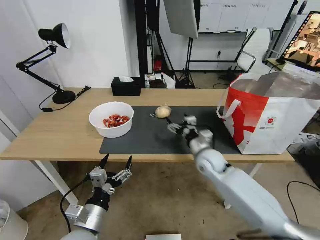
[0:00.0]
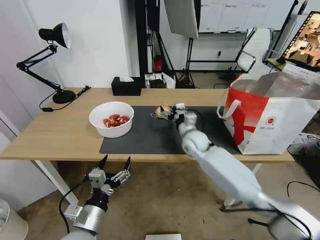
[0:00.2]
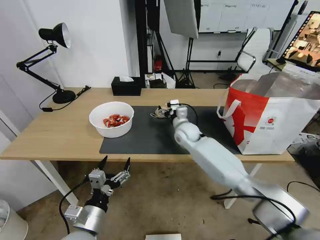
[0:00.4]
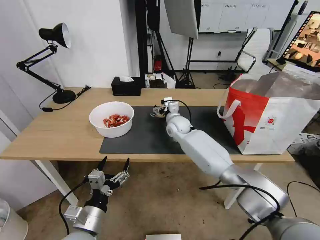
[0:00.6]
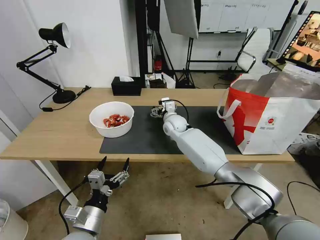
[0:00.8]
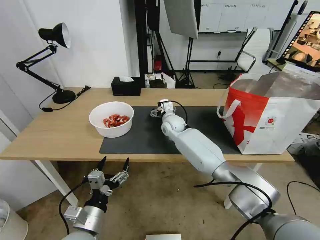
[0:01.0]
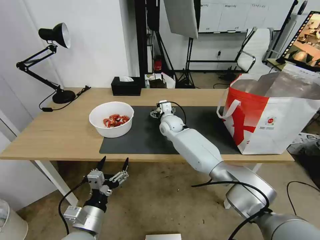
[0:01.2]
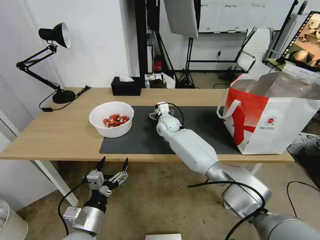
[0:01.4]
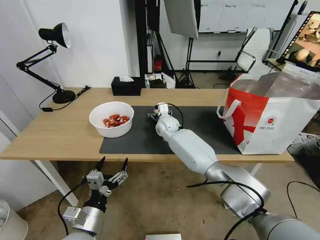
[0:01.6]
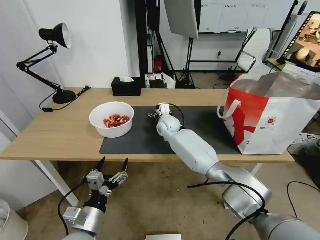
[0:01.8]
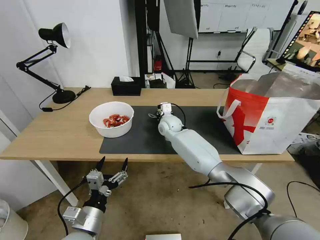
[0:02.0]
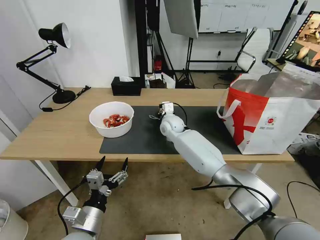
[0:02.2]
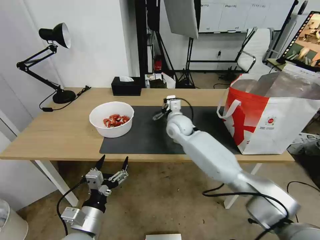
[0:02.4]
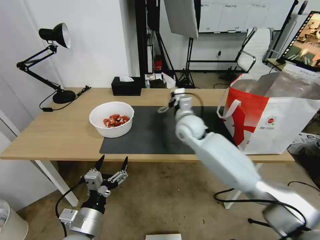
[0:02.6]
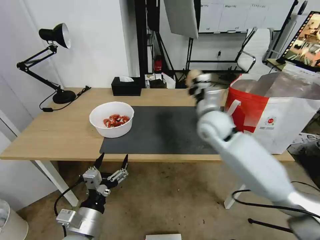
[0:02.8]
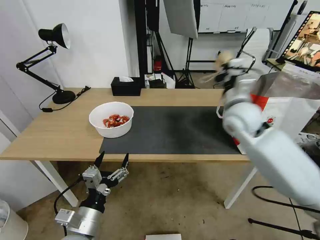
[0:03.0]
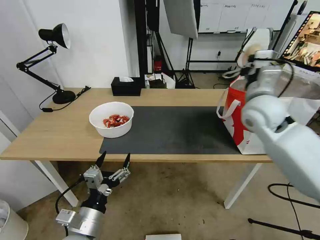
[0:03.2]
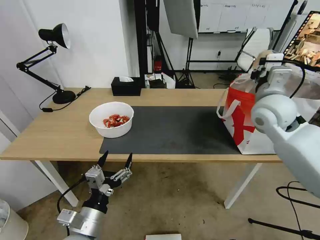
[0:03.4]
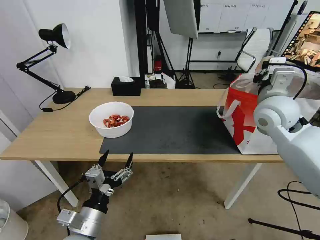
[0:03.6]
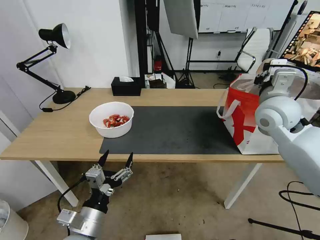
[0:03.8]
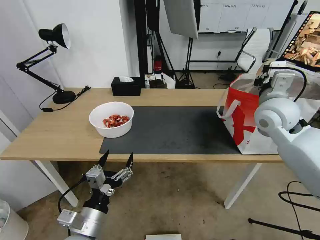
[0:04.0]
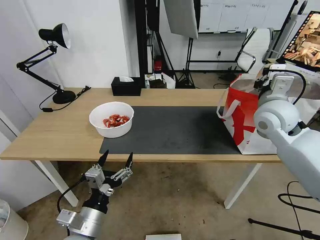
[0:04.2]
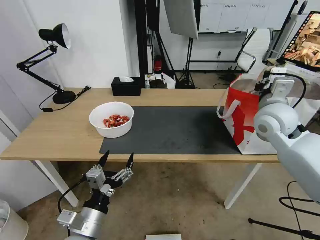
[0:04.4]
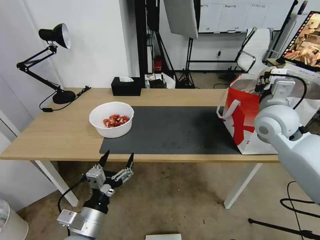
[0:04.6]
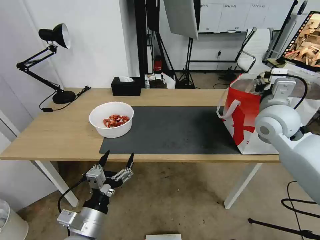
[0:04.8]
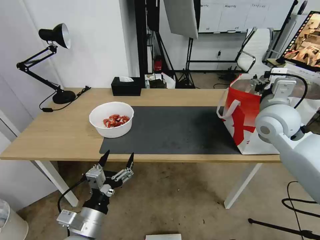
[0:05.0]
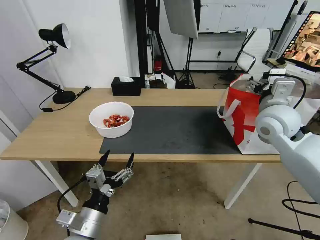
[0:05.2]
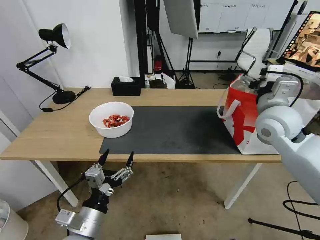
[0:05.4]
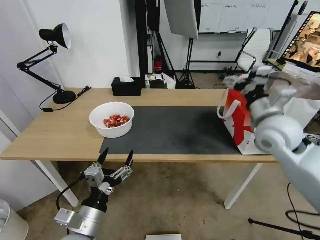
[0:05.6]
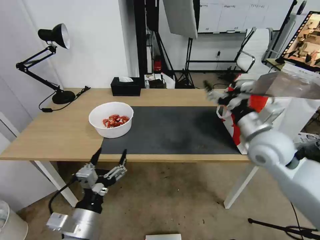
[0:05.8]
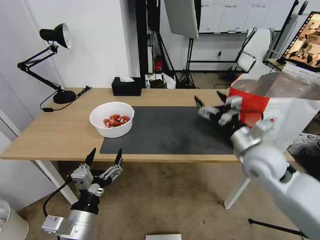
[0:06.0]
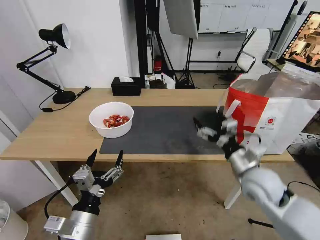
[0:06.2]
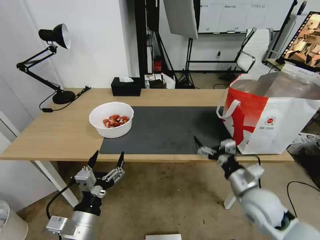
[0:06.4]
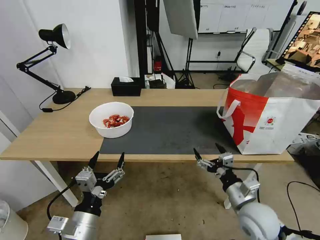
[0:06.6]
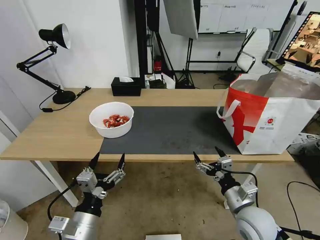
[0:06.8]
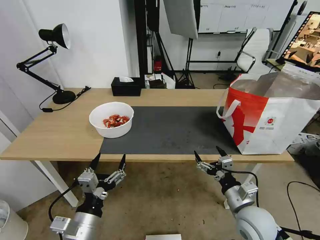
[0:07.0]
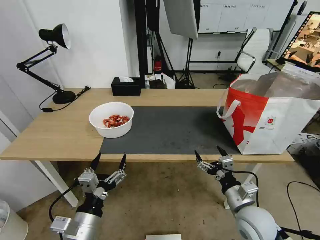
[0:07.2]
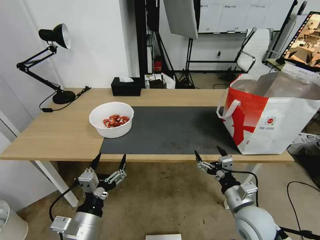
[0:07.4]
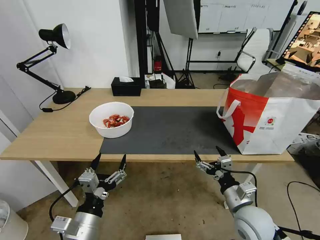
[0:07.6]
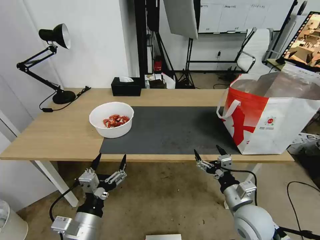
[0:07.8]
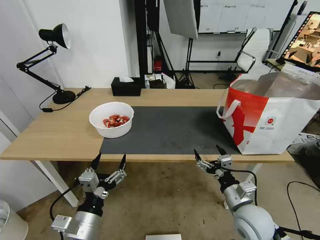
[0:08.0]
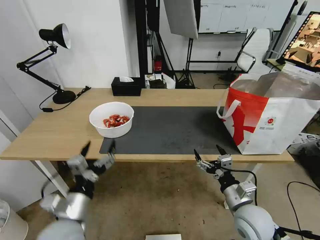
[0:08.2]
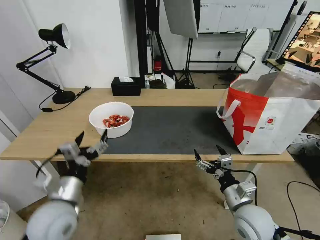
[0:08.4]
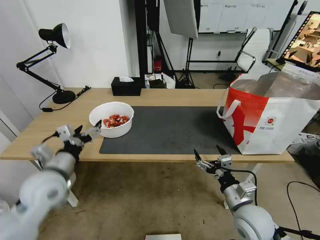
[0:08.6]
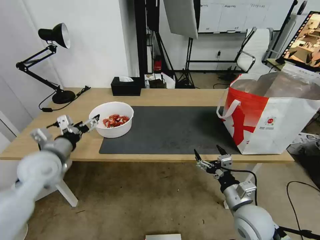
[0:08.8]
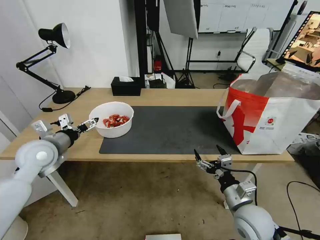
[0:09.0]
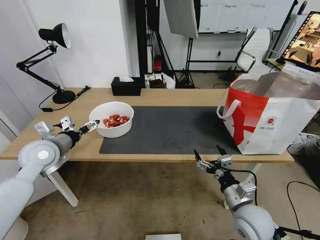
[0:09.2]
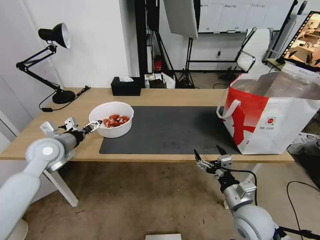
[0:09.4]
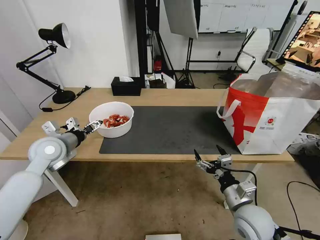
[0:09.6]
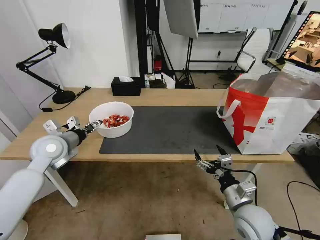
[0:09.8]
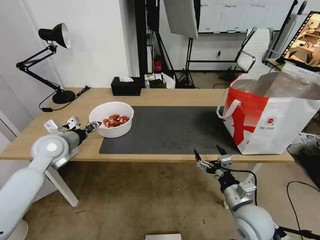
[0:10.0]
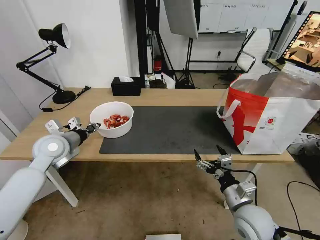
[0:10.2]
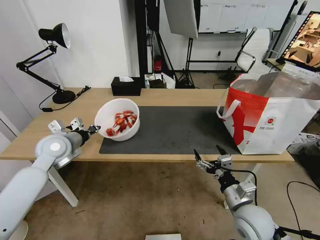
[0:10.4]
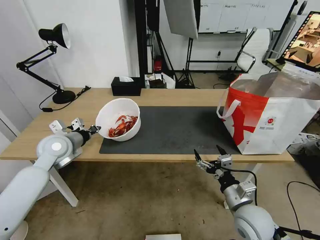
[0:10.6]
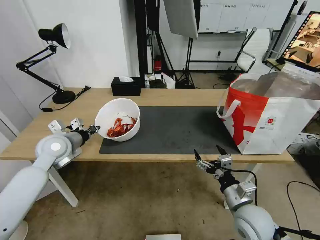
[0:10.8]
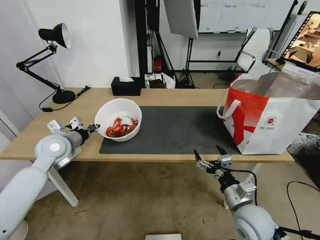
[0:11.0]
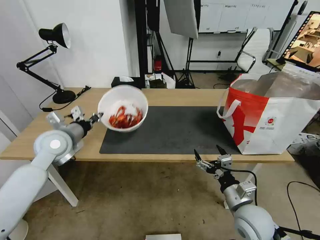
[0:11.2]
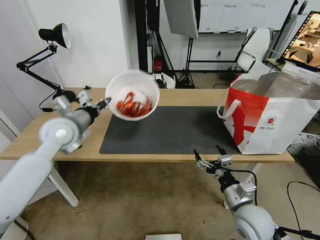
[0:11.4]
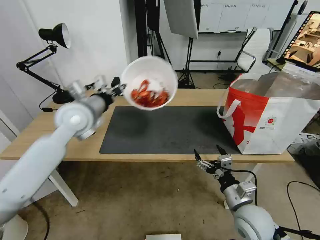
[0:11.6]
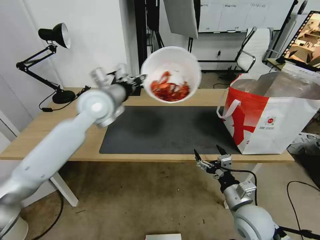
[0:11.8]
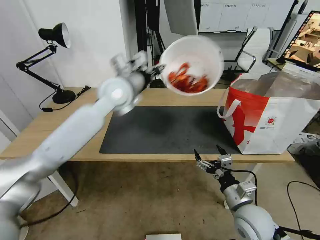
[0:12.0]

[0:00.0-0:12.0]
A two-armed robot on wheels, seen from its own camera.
Task of the whole recording: Pick up the trash from the table and place it into the takeout bag.
0:00.0 to 0:01.6: The right gripper shifts approximately 20 cm forward and to the left.
0:01.6 to 0:03.0: The right gripper shifts roughly 30 cm to the right, upward and backward, and closes.
0:03.0 to 0:04.4: The right gripper moves to the right, roughly 5 cm.
0:04.4 to 0:06.0: The right gripper travels backward and downward by some 10 cm, and opens up.
0:06.0 to 0:07.6: The right gripper heads downward and backward, covering about 15 cm.
0:07.6 to 0:09.0: The left gripper is displaced forward, to the left and upward by some 30 cm.
0:09.0 to 0:10.4: The left gripper closes up.
0:10.4 to 0:12.0: The left gripper shifts about 25 cm to the right and upward.

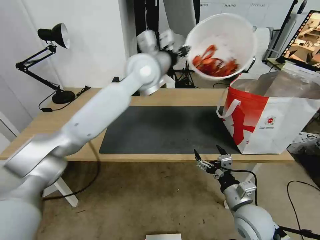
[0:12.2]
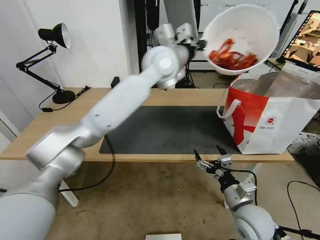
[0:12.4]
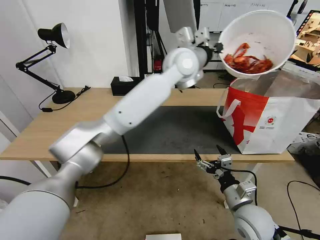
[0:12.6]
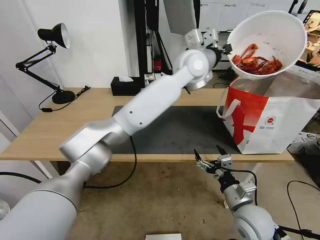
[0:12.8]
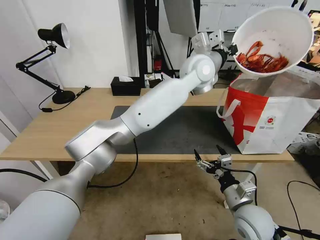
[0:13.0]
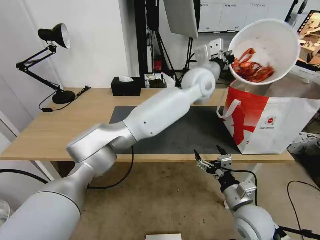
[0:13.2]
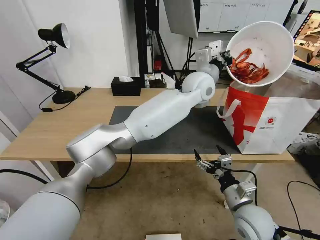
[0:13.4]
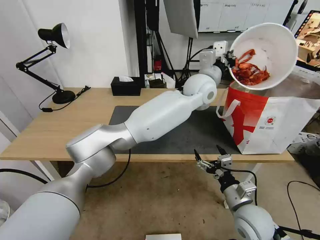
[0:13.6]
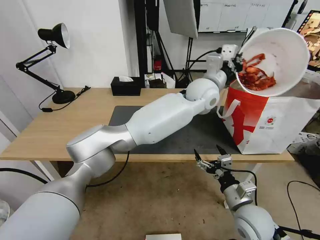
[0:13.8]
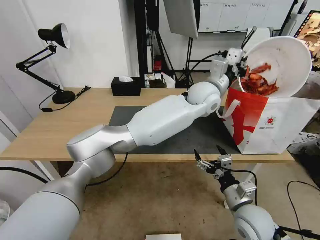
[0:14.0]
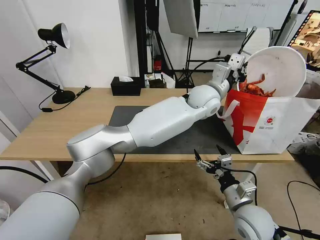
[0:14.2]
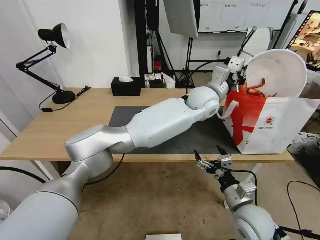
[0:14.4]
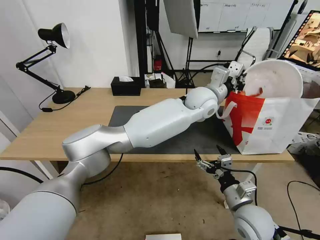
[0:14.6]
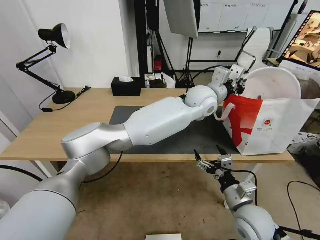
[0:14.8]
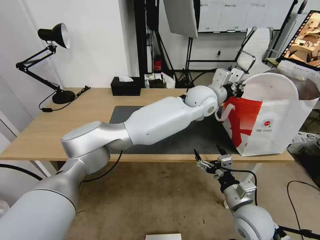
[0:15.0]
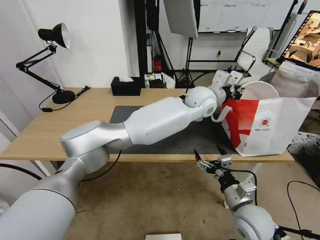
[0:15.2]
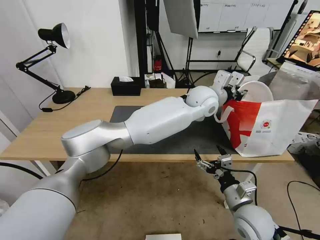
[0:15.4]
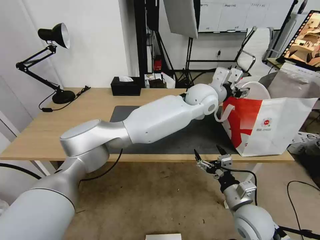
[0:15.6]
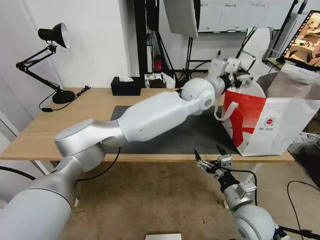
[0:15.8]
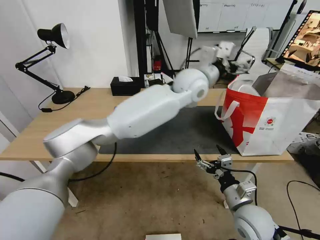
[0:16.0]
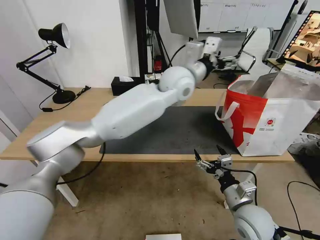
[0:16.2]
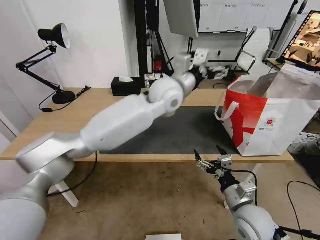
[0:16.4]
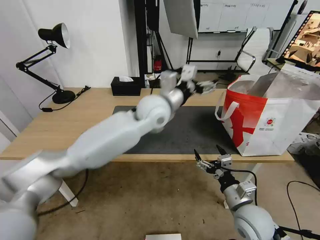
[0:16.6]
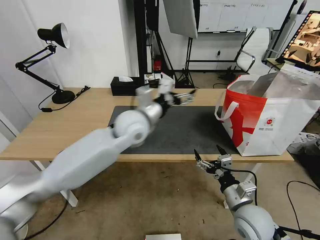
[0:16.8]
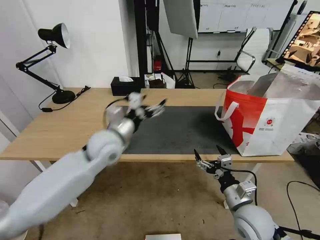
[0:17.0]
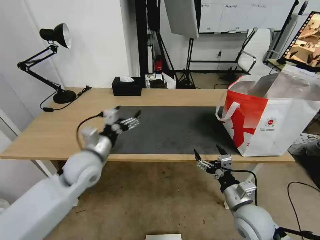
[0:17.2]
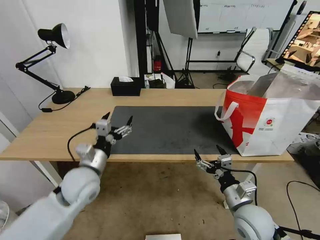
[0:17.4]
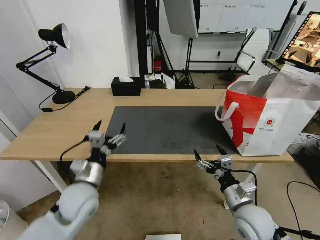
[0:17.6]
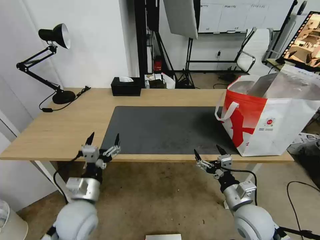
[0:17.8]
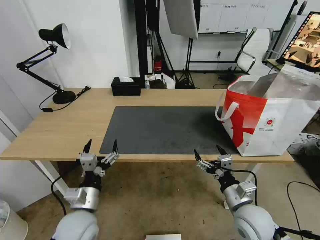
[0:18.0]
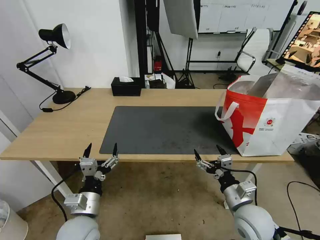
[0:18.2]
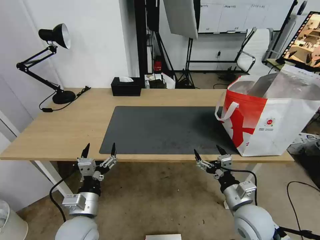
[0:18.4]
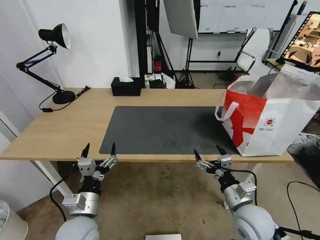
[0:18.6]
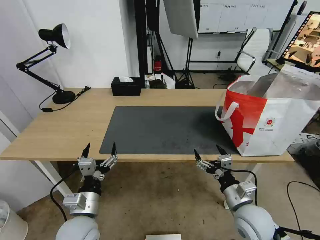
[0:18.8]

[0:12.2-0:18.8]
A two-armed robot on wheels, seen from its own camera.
Task of the whole recording: Pick up the trash from the table and place it into the takeout bag.
0:12.2 to 0:13.8: The left gripper heads to the right and downward, covering about 20 cm.
0:13.8 to 0:15.4: The left gripper opens up.
0:15.4 to 0:17.2: The left gripper travels to the left and backward by some 40 cm, and opens.
0:17.2 to 0:18.8: The left gripper travels backward and downward by approximately 20 cm.
